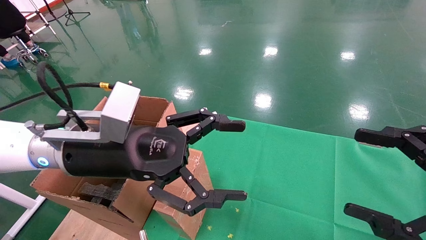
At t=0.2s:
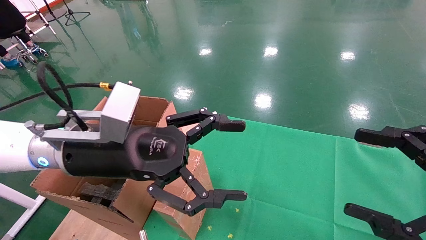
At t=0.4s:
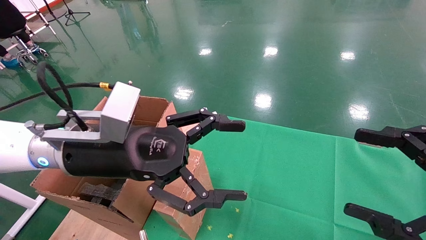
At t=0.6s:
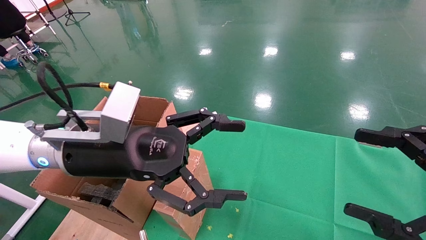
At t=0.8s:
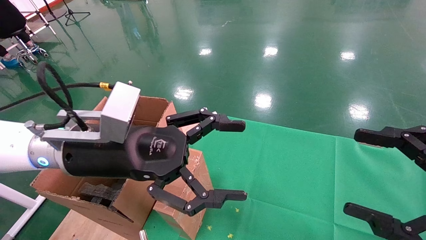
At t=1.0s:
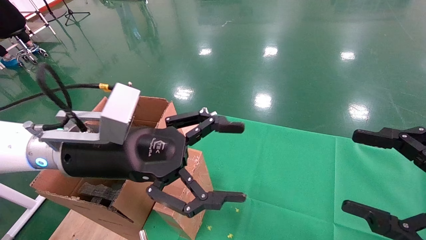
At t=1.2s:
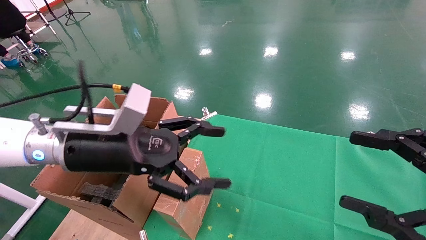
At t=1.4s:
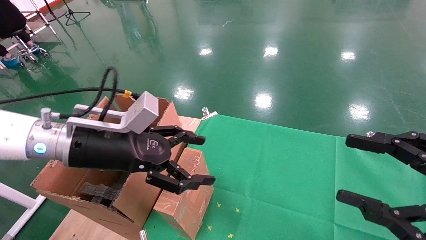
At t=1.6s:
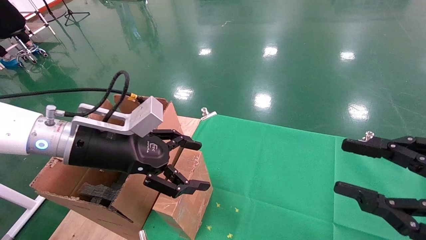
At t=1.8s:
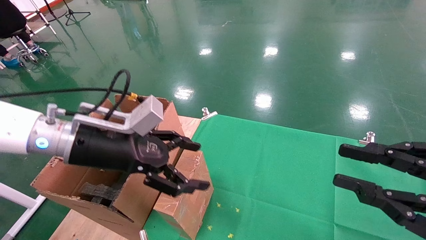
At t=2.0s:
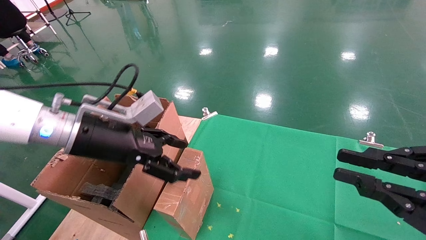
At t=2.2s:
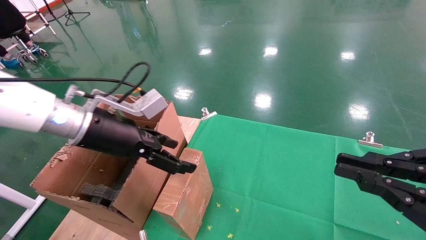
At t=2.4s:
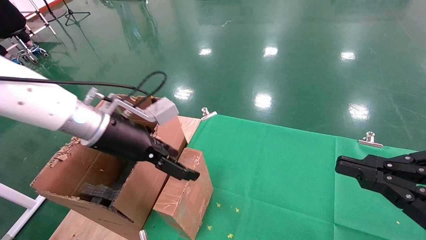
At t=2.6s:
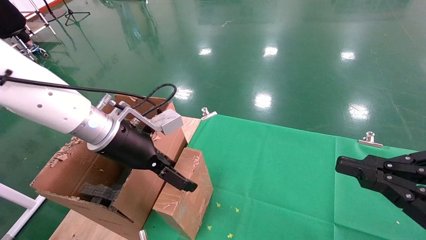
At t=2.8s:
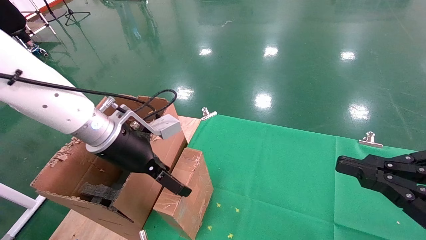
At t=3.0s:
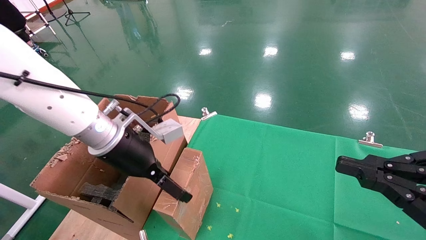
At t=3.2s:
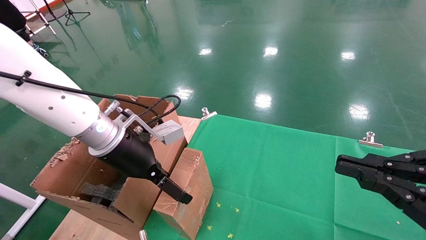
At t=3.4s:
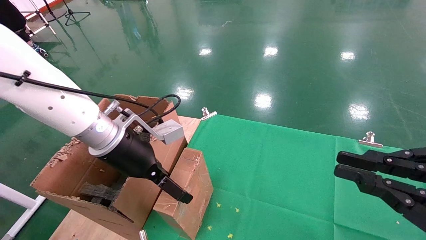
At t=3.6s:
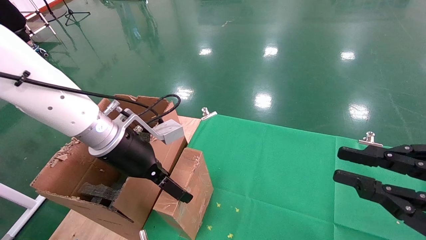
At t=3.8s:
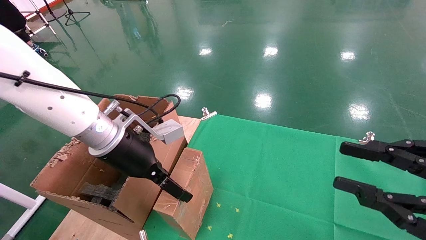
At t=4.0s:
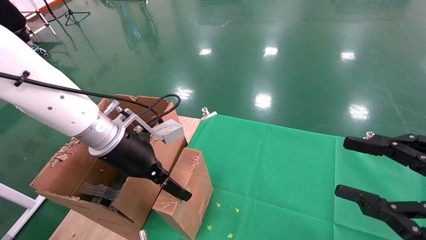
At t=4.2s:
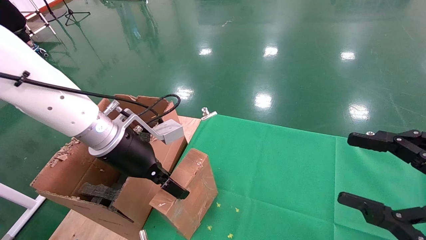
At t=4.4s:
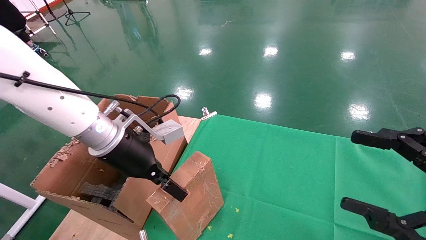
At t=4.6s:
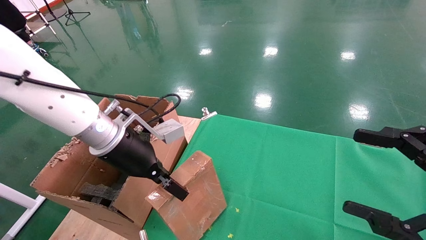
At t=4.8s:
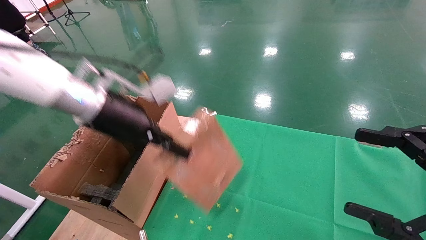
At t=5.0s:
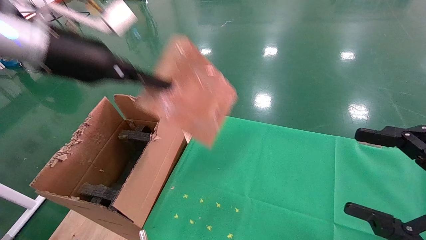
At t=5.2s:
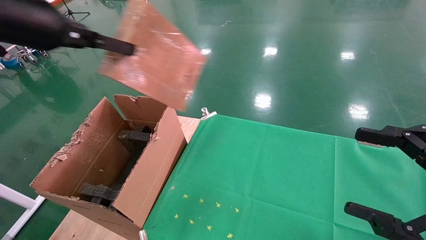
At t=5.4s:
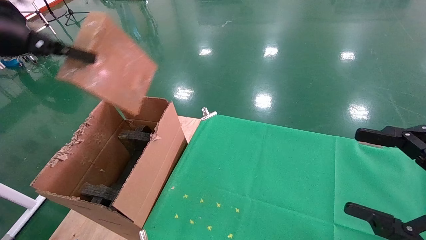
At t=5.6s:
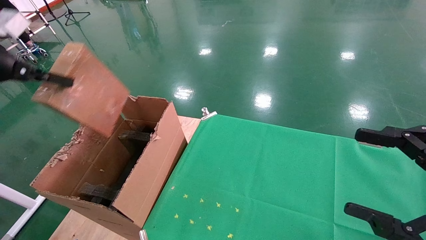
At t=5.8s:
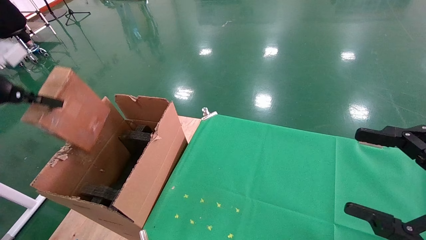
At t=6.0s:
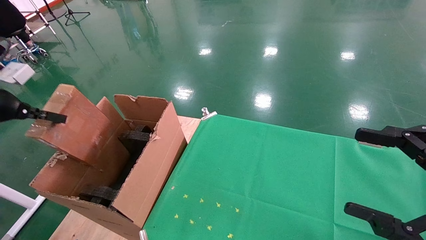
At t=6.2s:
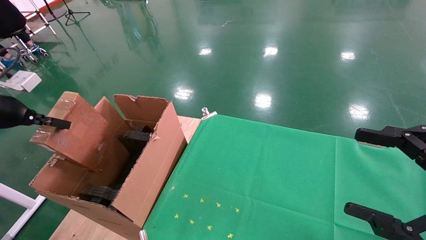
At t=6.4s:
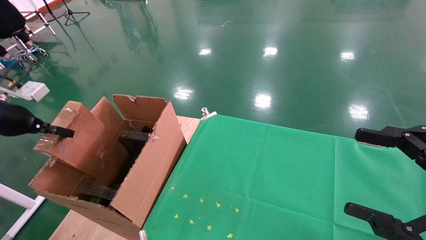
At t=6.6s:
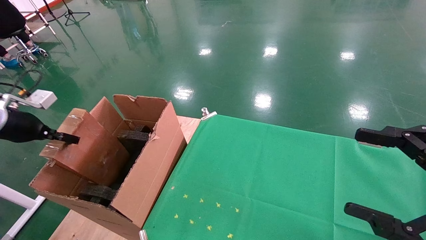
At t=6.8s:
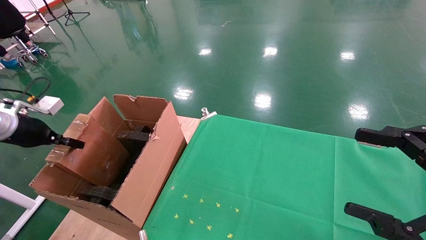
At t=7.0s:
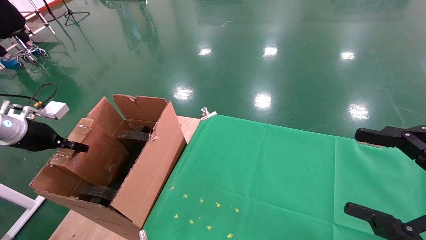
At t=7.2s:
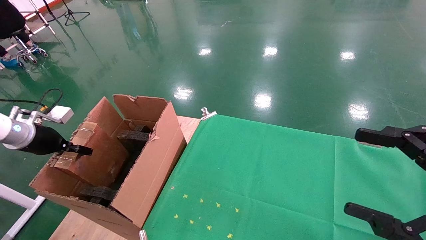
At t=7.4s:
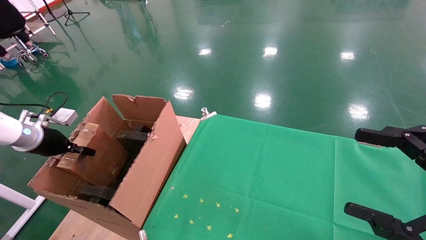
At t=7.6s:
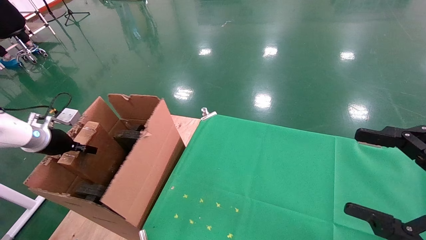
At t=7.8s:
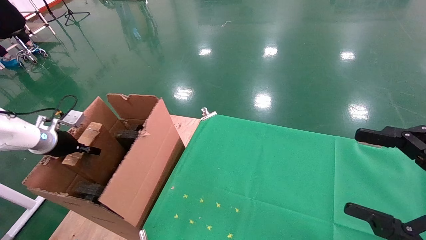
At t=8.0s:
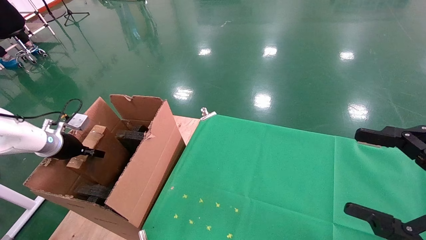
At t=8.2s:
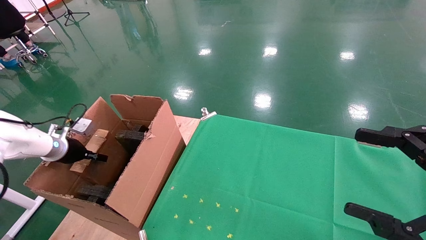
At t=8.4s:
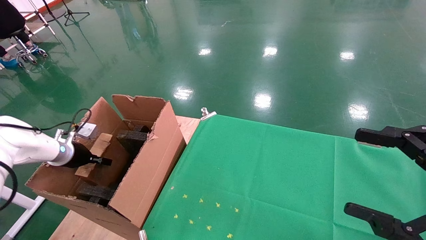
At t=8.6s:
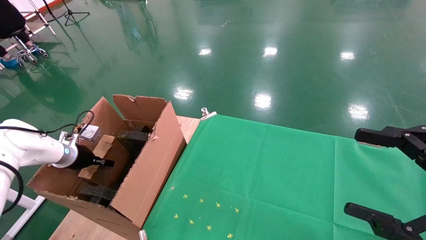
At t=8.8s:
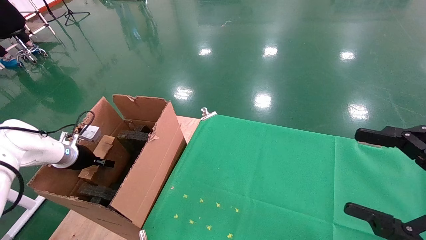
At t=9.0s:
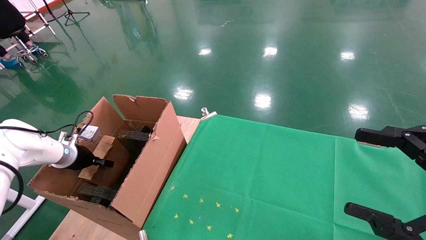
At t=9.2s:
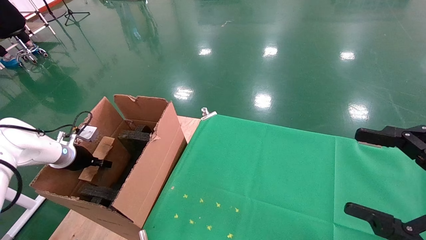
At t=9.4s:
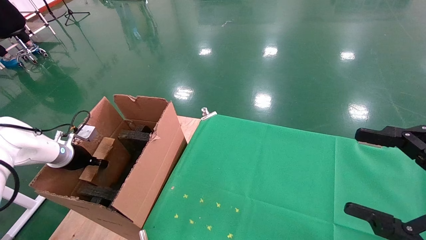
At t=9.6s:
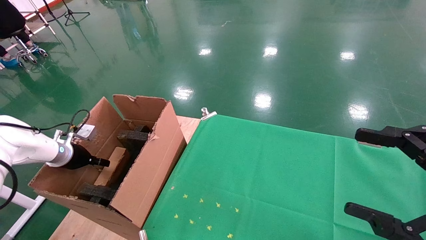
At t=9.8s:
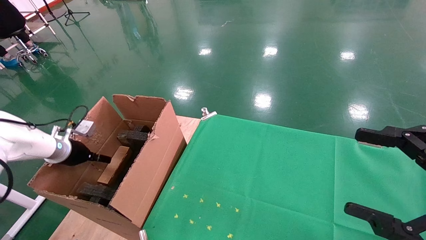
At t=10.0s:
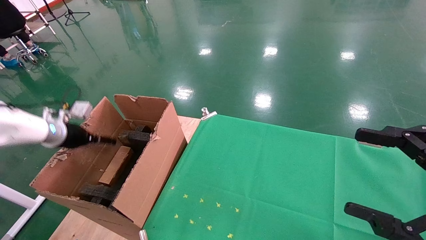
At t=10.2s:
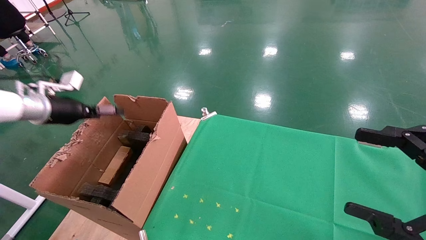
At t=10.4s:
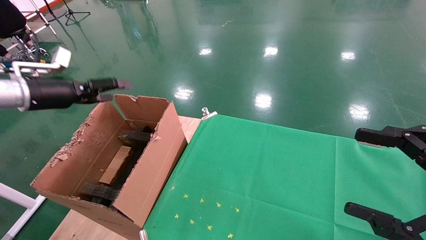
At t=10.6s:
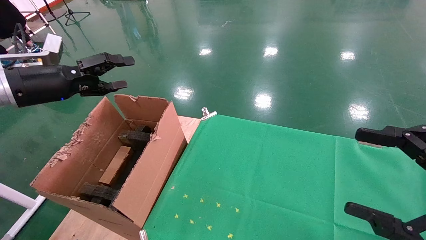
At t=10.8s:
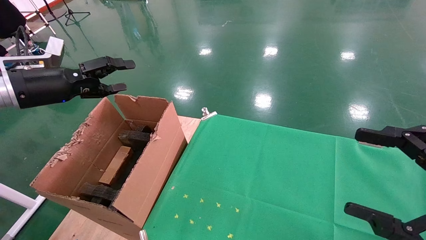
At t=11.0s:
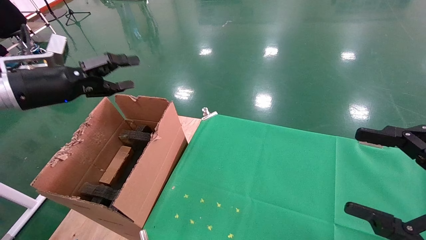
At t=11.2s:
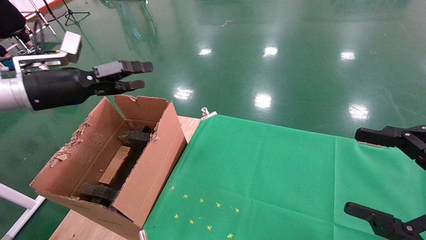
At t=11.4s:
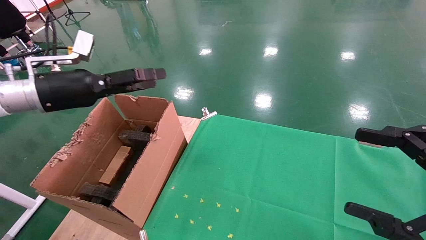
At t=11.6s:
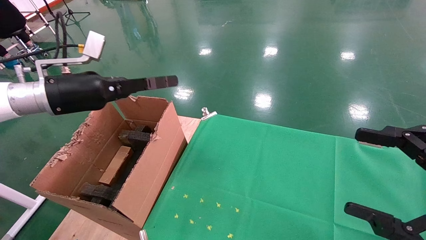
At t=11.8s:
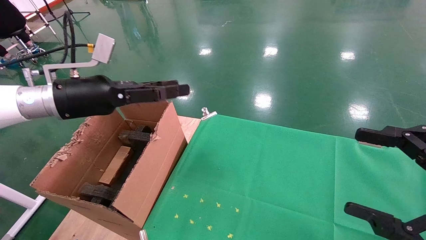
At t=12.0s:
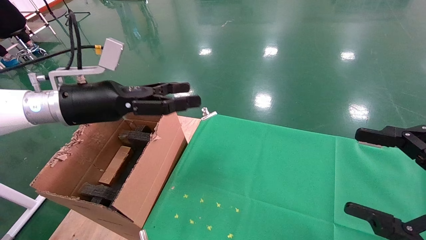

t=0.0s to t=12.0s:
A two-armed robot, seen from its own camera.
Task of the whole recording: using a robotic arm to pick up a cardboard box and palace it the carton.
Step, t=1.2s to t=4.4s: Pick up the mouse and the power cord paper box.
Step, t=4.6s to t=10.4s: Place the mouse and the power cord paper box into the container.
t=0.0s to t=1.6s: The right gripper closes up.
t=1.6s to t=3.0s: The left gripper ends up about 5 cm from where it was. Meanwhile the right gripper closes its fingers.
t=3.0s to t=4.4s: The right gripper opens its fingers. The left gripper closes up.
t=4.4s to t=6.0s: The left gripper is displaced to the left by some 30 cm.
t=6.0s to t=7.6s: The left gripper is displaced downward and forward by roughly 15 cm.
t=7.6s to t=9.0s: The left gripper goes some 5 cm downward.
t=9.0s to t=10.4s: The left gripper goes about 20 cm upward, and opens up.
t=10.4s to t=12.0s: The left gripper heads to the right, covering roughly 15 cm.

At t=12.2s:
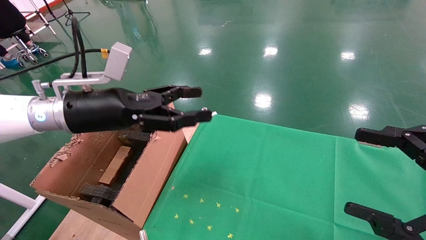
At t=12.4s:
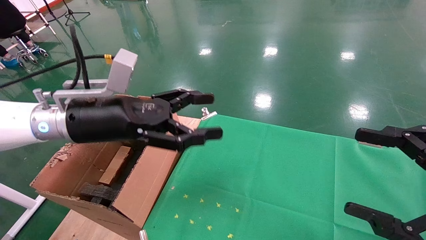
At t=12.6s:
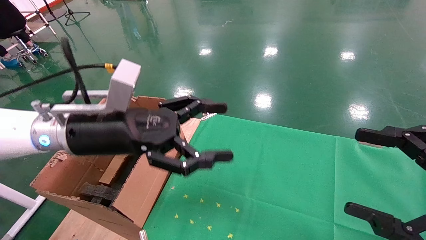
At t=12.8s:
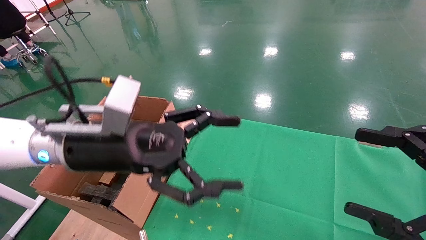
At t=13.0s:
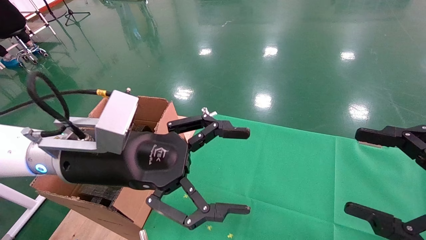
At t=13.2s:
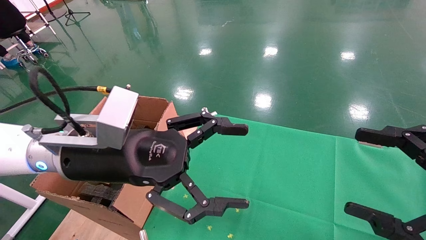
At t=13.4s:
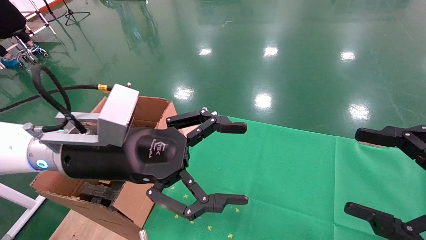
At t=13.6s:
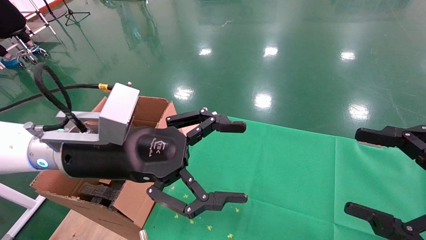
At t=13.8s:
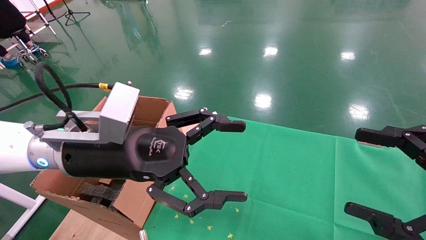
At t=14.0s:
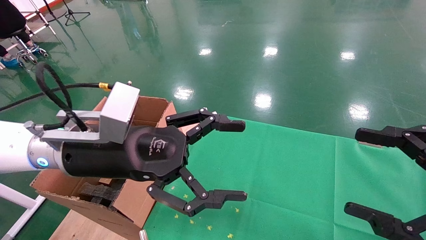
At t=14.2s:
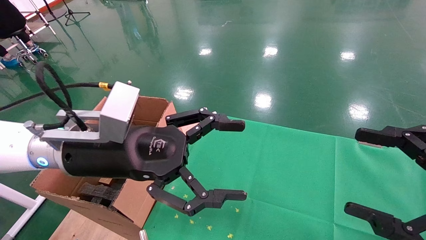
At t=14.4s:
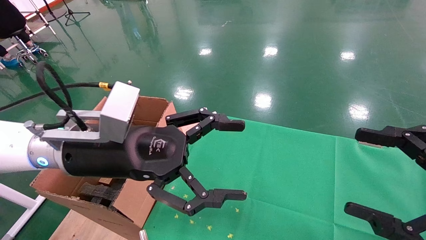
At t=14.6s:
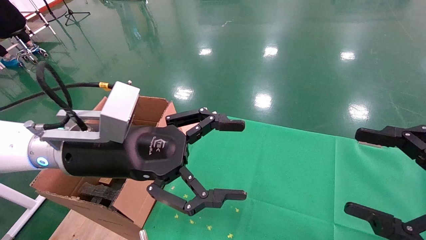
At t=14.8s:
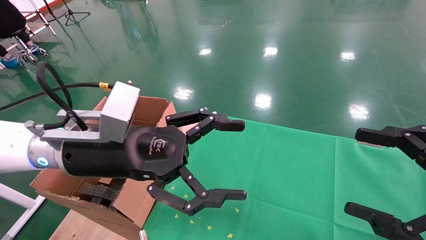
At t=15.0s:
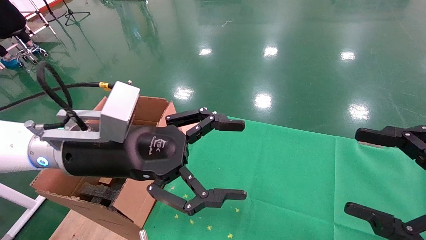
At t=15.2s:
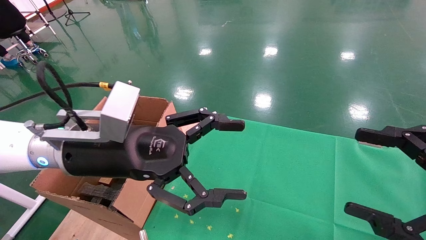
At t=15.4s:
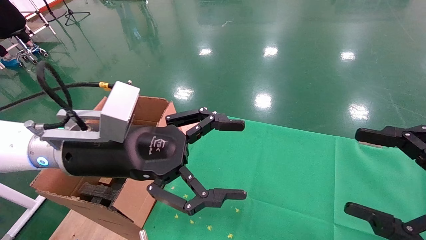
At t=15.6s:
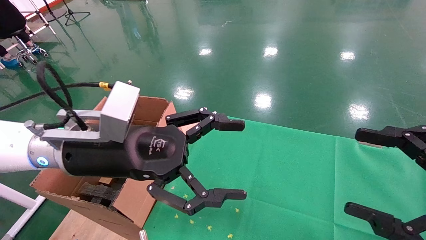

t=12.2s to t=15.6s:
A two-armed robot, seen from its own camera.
Task of the whole recording: using a robotic arm to pick up a cardboard box and palace it the carton.
t=12.2s to t=13.8s: The left gripper is displaced to the right and backward by roughly 10 cm.
t=13.8s to t=15.6s: Neither gripper changes place.
